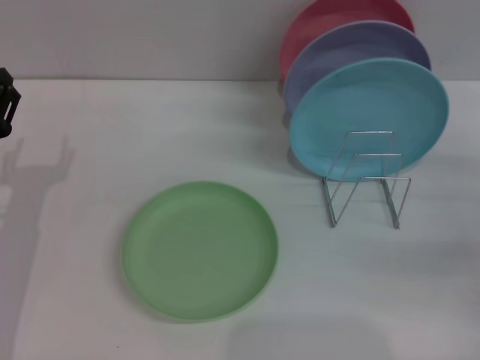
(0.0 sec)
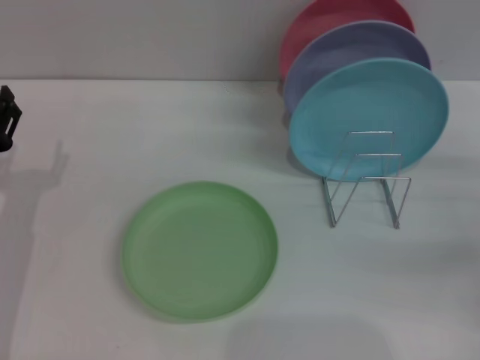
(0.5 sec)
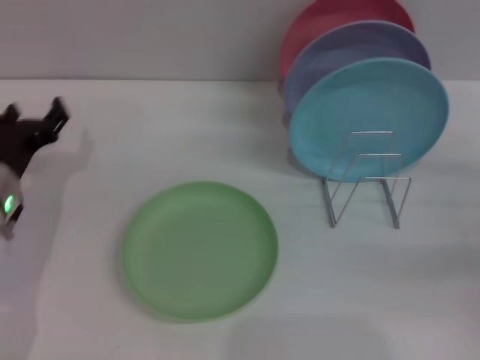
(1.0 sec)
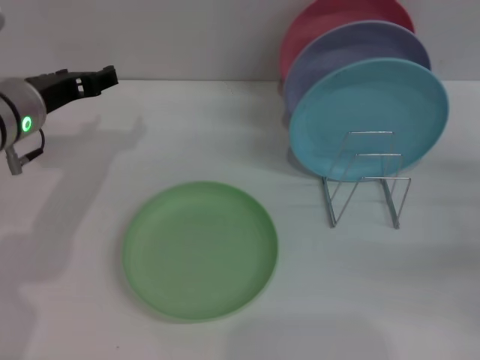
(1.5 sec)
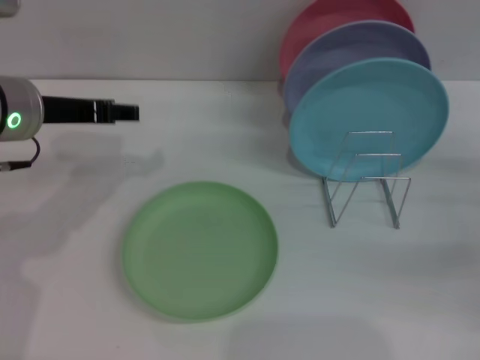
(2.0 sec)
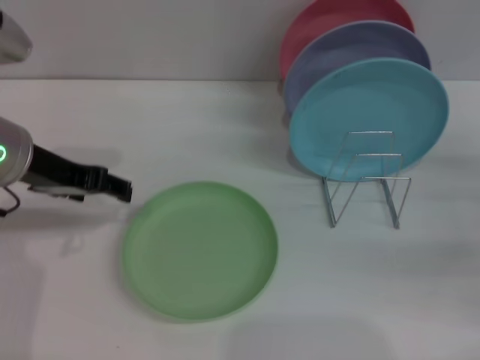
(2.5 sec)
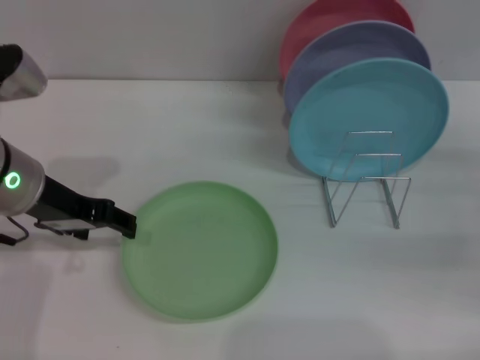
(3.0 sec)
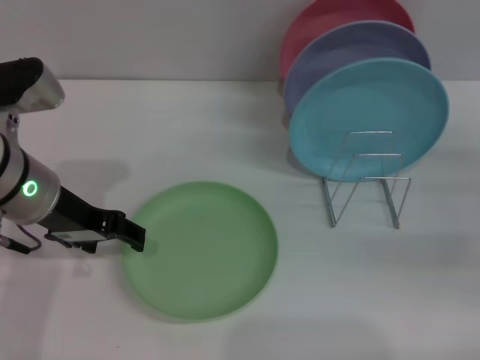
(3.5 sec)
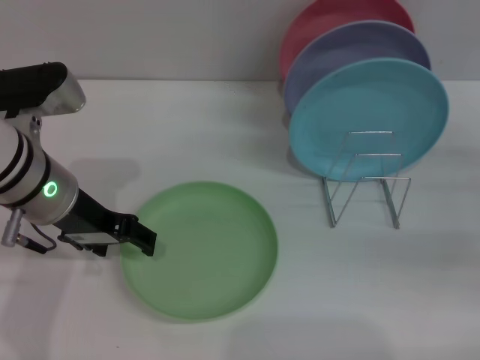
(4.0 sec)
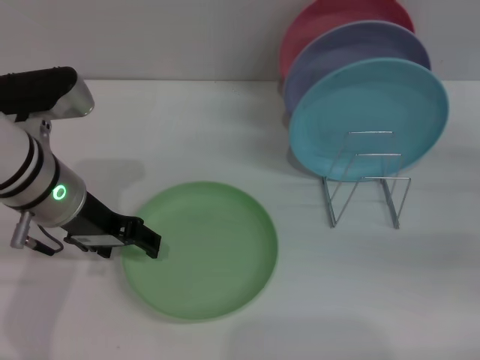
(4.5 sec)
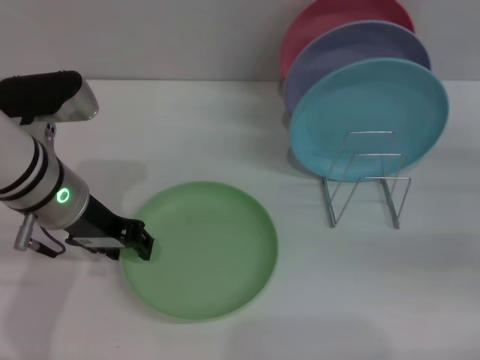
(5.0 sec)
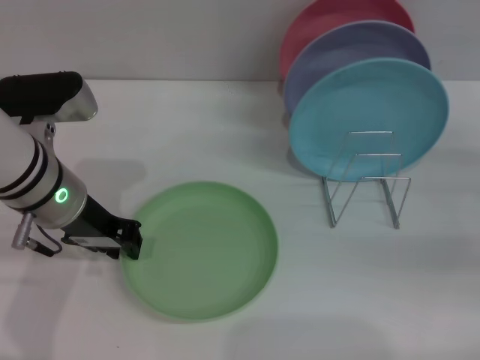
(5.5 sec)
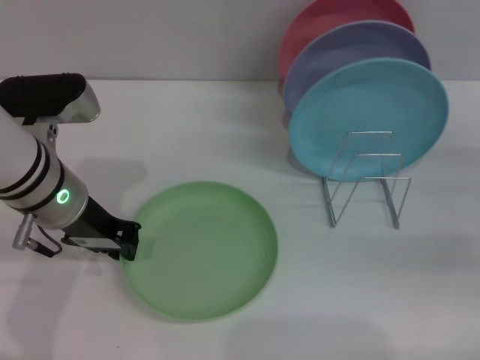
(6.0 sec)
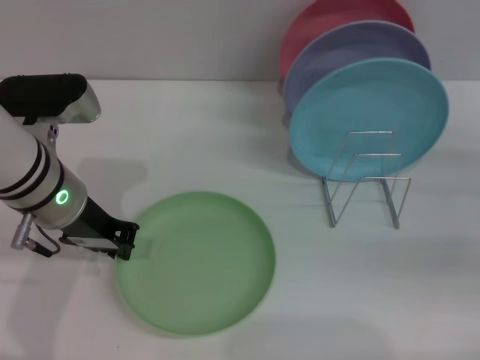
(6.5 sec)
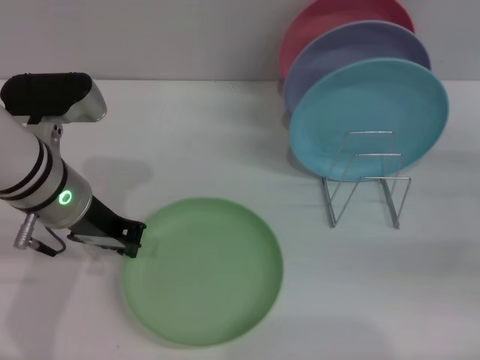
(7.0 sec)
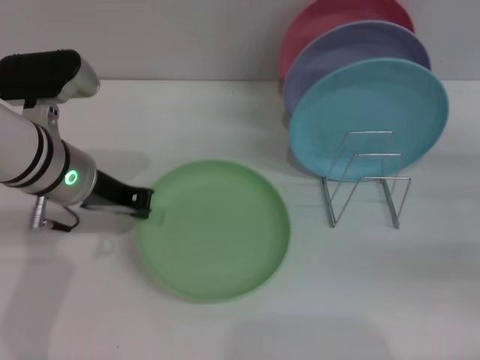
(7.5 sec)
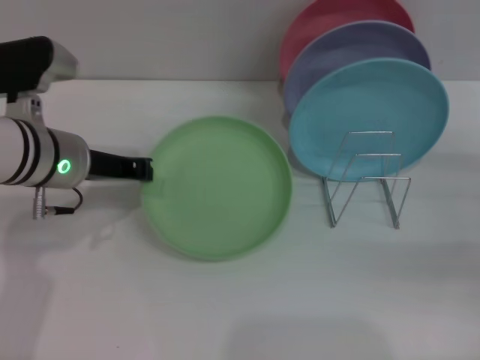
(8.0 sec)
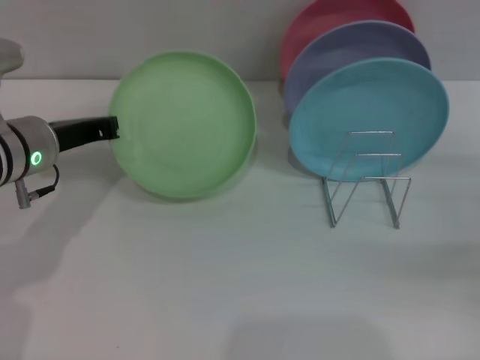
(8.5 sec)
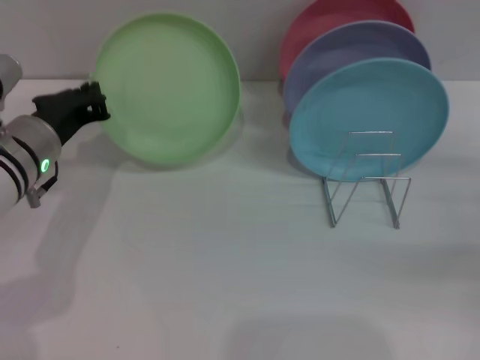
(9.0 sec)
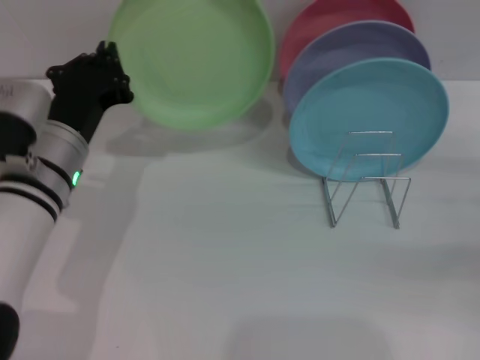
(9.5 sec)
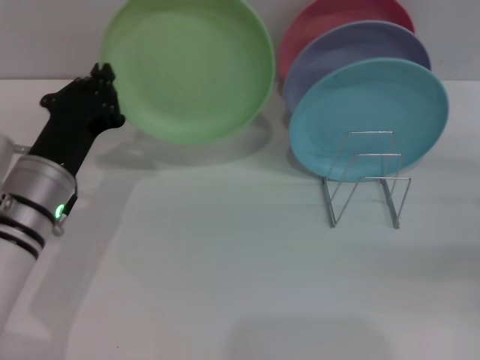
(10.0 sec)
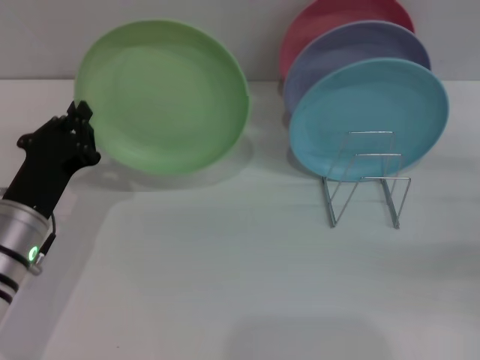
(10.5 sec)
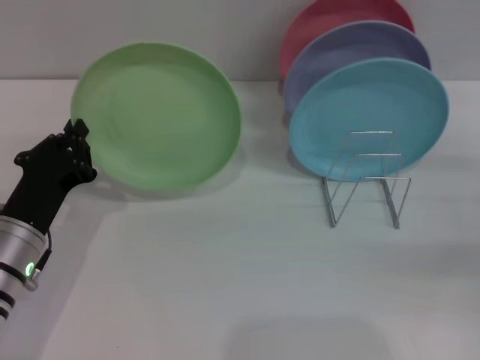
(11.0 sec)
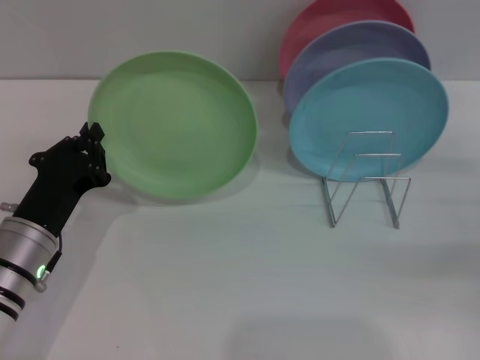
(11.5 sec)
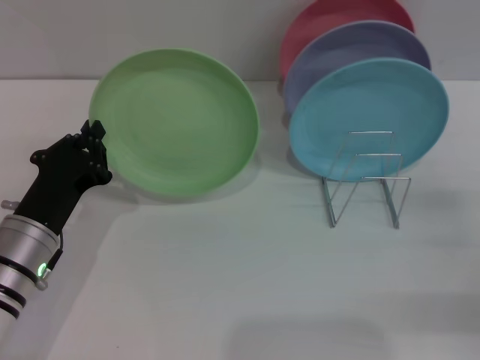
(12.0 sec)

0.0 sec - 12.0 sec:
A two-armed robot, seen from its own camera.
Task of the whole recording: Grip the plate with one hand, pass it to the other, then set it on the shelf.
Step, 0.0 sec - 10.5 sec: Pick up the plate with the left gripper.
0.0 sec - 2.0 sec: The left gripper shifts about 15 cm upward, forward and to the right.
4.0 sec - 6.0 sec: The left gripper closes up.
8.0 sec - 10.0 sec: The left gripper goes approximately 10 cm downward and backward.
10.0 sec - 12.0 sec: The right gripper changes place by some 5 cm. The left gripper ends up roughly 5 cm from where it was.

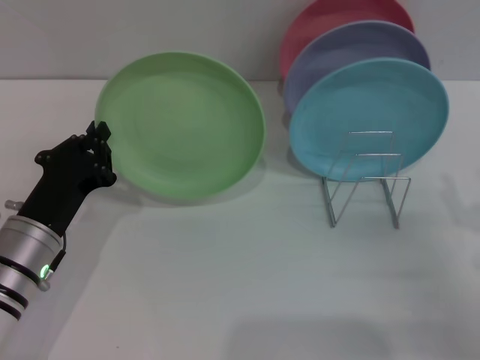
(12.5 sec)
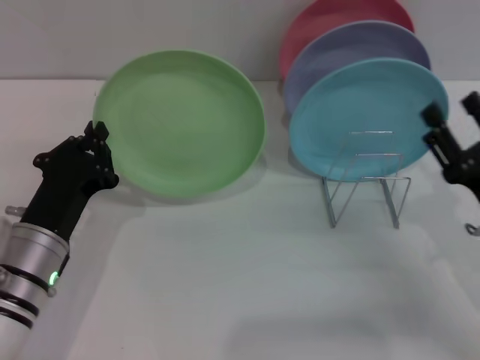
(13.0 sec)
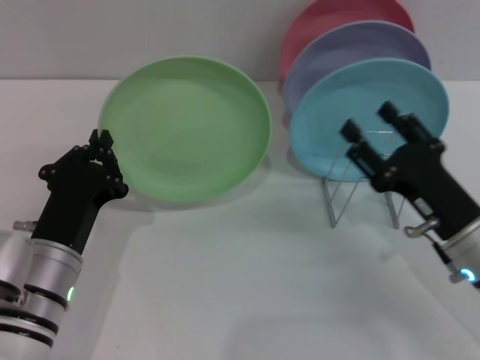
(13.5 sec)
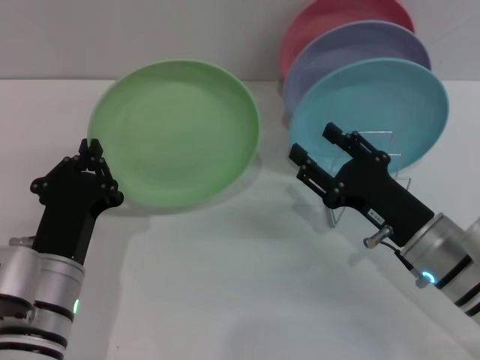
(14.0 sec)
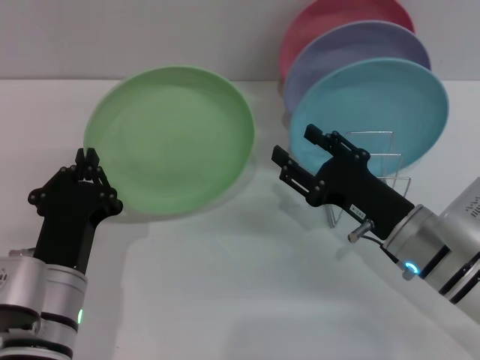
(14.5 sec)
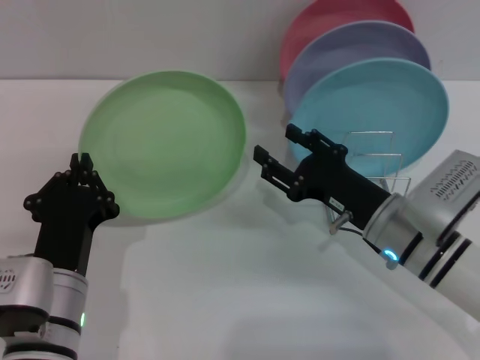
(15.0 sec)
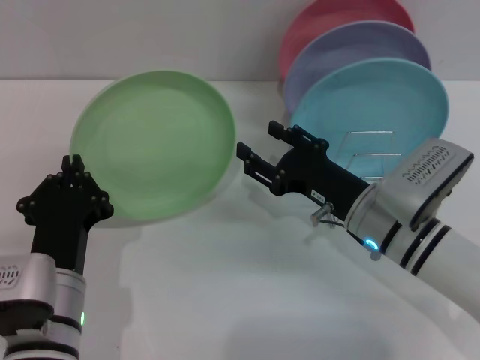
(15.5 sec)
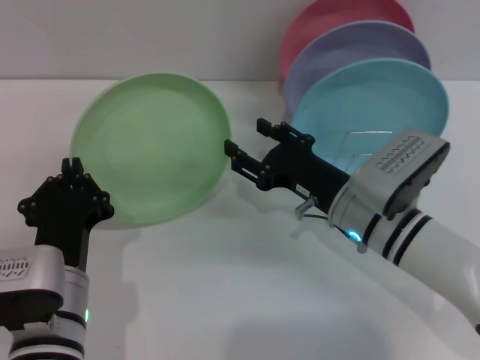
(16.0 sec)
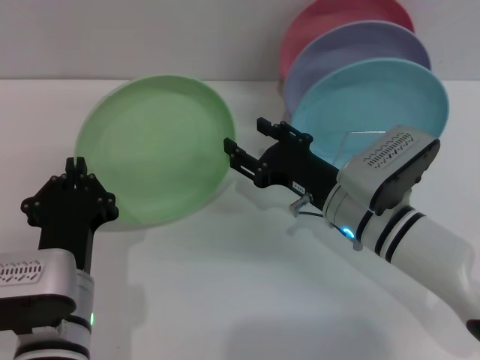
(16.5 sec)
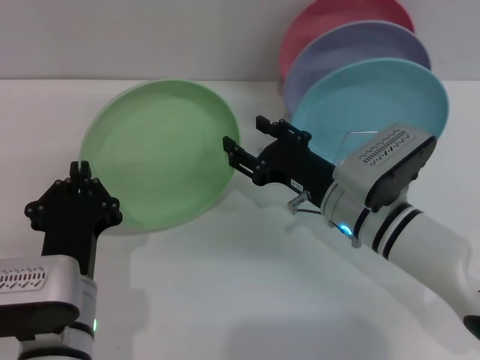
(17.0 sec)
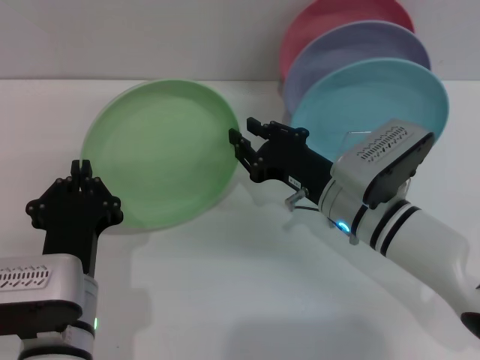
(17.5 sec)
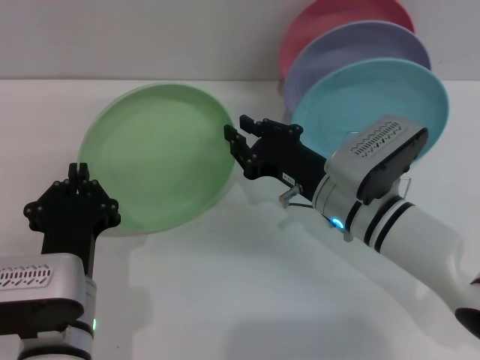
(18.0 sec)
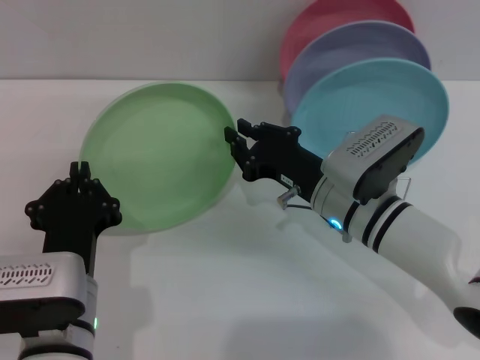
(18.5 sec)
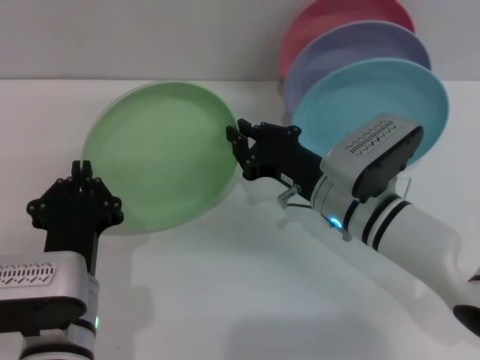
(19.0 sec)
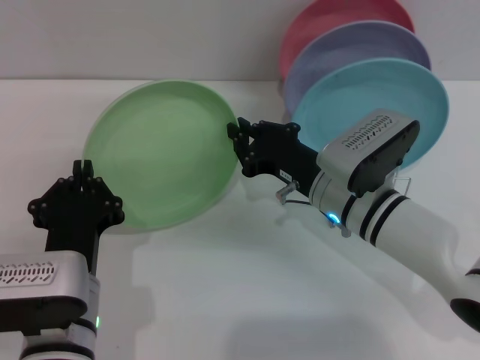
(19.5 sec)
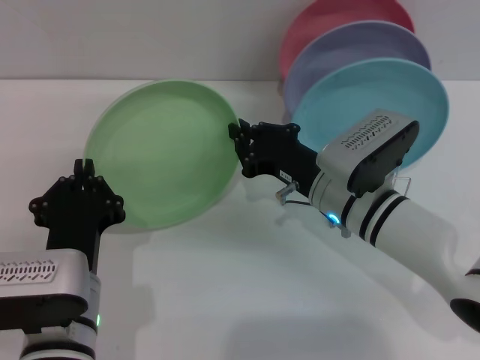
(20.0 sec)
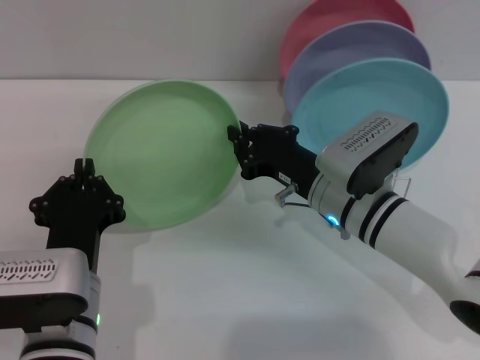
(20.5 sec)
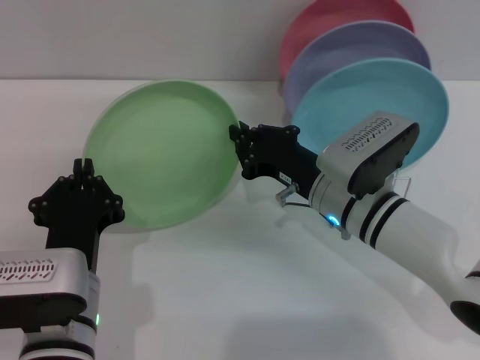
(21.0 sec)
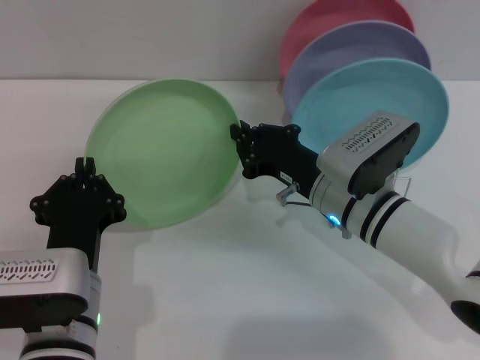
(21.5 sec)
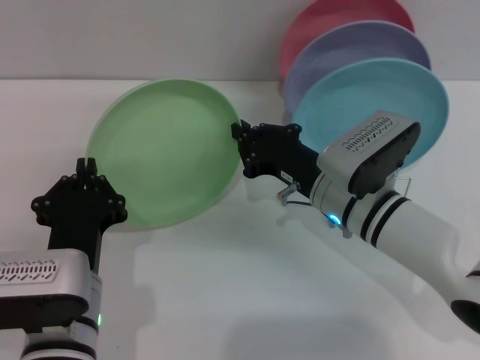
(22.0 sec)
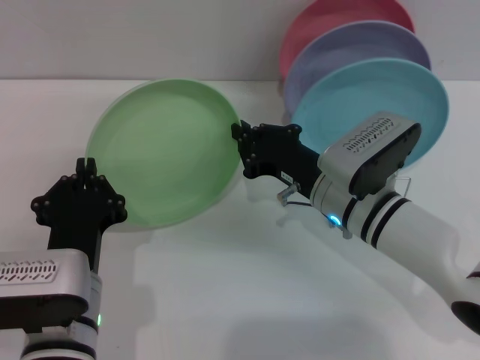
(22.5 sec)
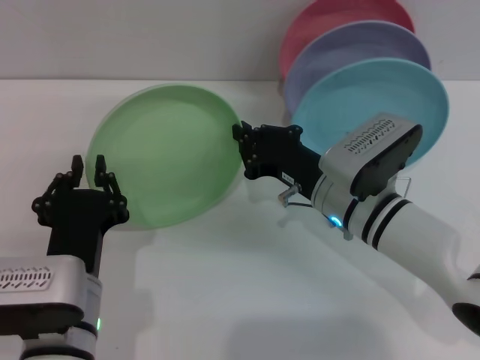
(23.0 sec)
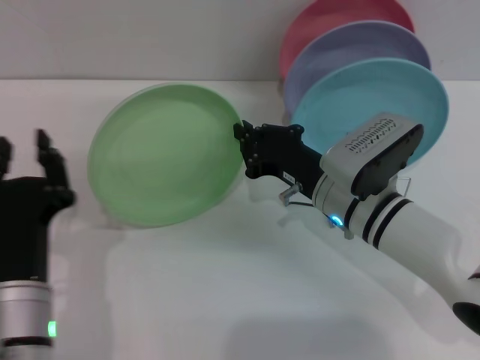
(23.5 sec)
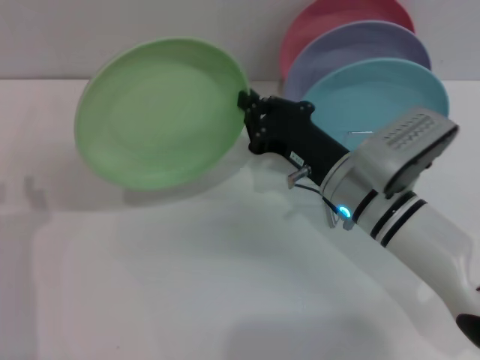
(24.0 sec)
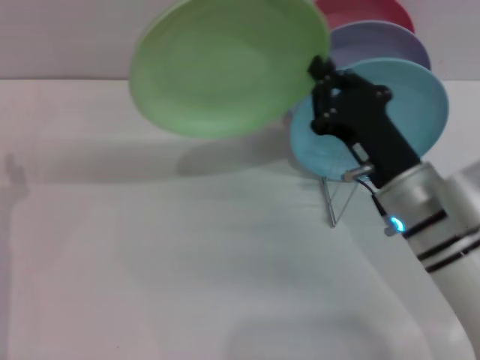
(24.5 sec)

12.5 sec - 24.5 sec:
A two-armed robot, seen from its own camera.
Task of the whole recording: Grip the plate with one hand, pass it to the other, then set it on the shelf.
Step, 12.5 sec - 23.5 sec: Pass the plate from the left gripper to the right gripper.
12.5 sec - 14.5 sec: The left gripper travels backward and to the right by approximately 10 cm, while the right gripper heads to the left and forward, covering roughly 15 cm.
14.5 sec - 16.5 sec: The right gripper is displaced to the left by about 5 cm.
16.5 sec - 18.5 sec: The right gripper closes up.
18.5 sec - 22.5 sec: Both grippers stay about where they are.
22.5 sec - 24.5 sec: The left gripper travels to the left by about 15 cm, and opens up. The right gripper shifts by roughly 5 cm.

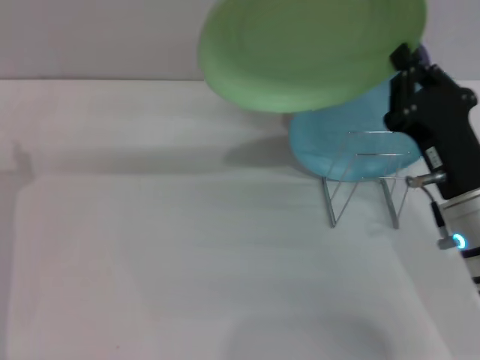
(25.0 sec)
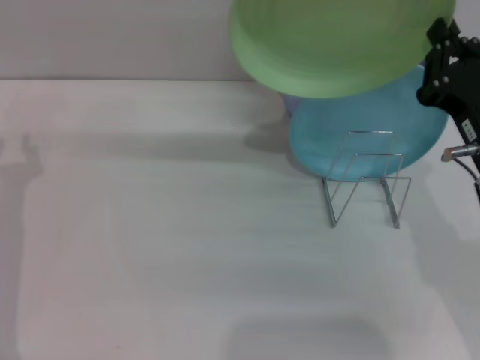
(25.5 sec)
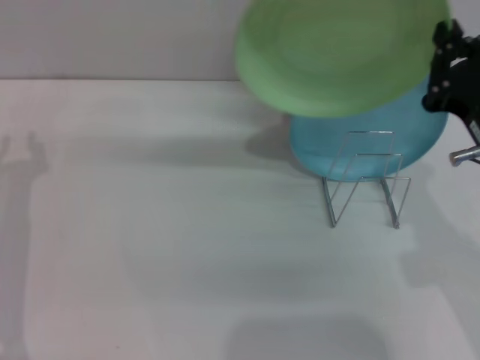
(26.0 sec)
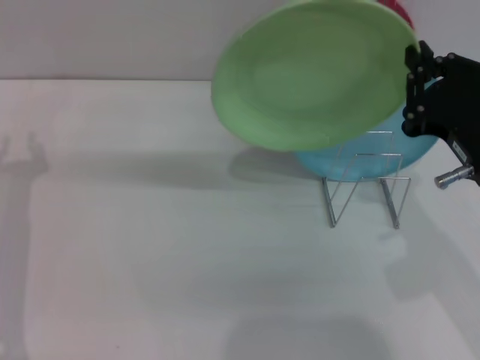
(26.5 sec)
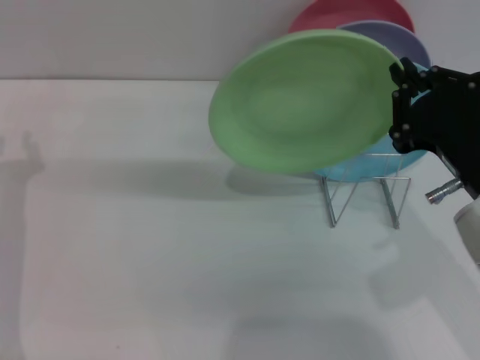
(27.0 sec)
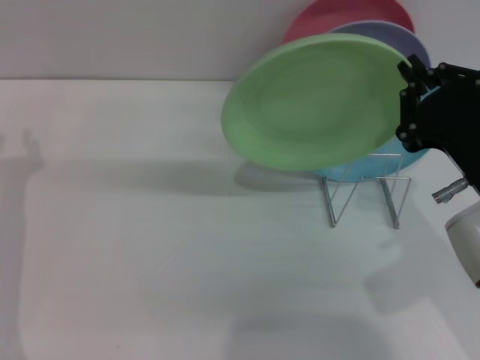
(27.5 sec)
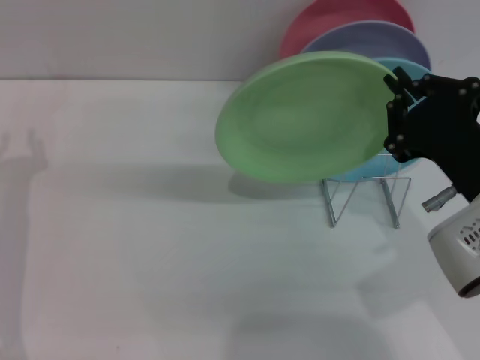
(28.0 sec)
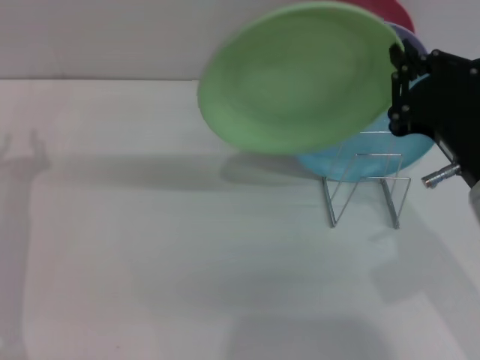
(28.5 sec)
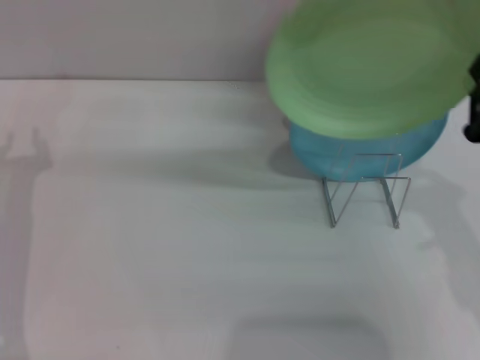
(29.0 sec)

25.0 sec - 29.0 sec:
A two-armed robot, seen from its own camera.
Task of the whole recording: Grip the plate with one hand, pass it to the other, then set it on the shelf.
25.0 sec - 27.0 sec: The right gripper shifts about 5 cm upward.
27.0 sec - 29.0 sec: The right gripper changes place by approximately 5 cm.
